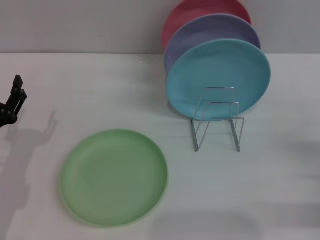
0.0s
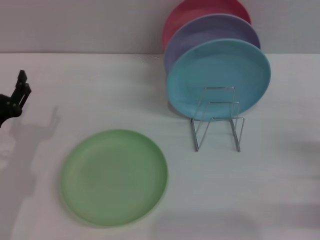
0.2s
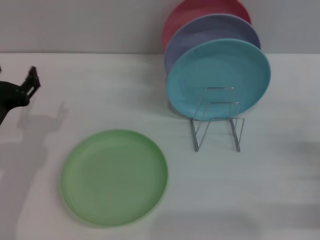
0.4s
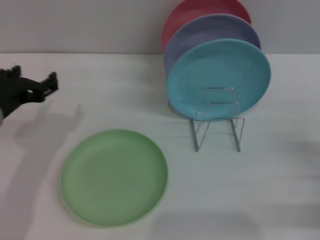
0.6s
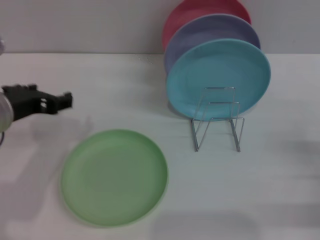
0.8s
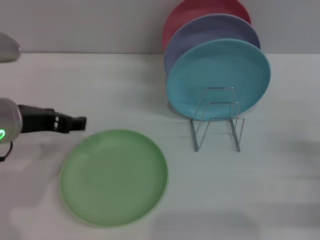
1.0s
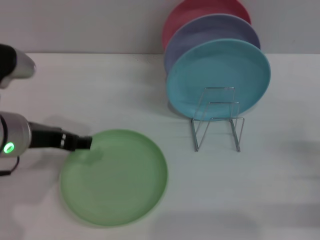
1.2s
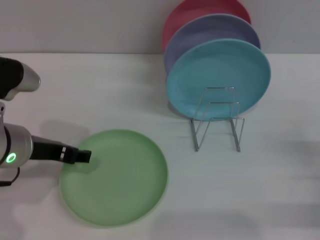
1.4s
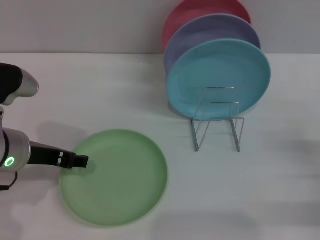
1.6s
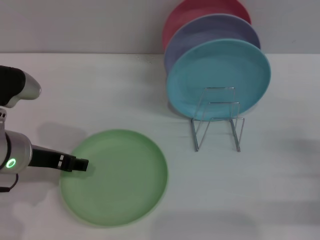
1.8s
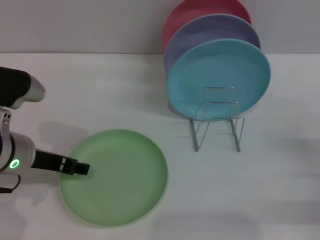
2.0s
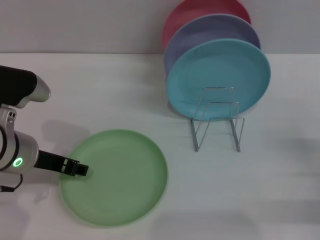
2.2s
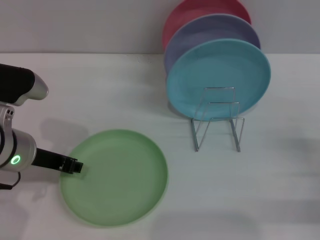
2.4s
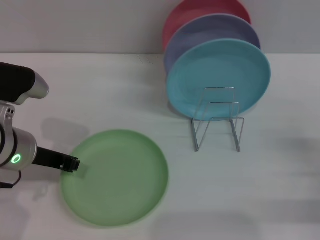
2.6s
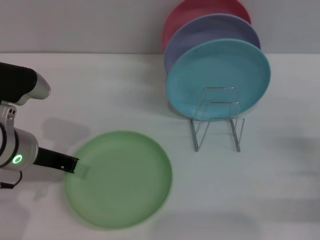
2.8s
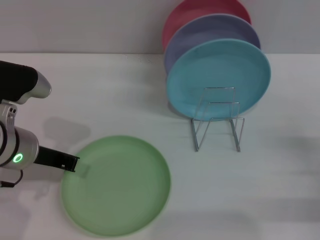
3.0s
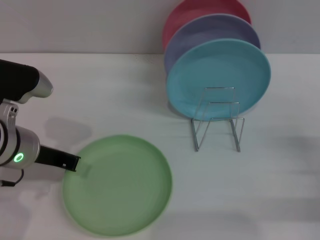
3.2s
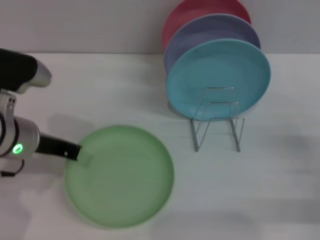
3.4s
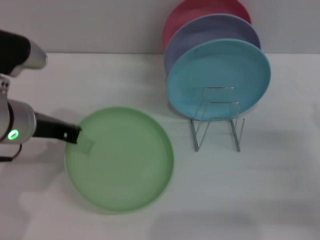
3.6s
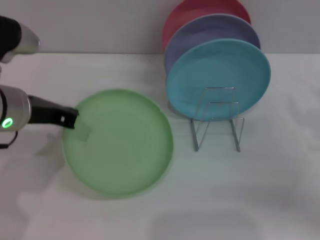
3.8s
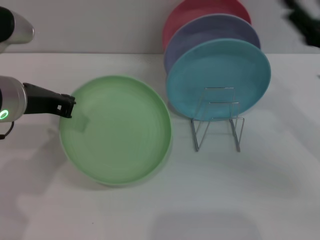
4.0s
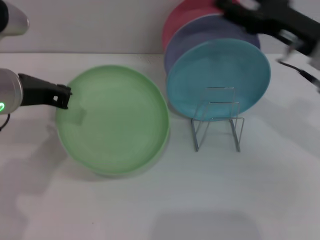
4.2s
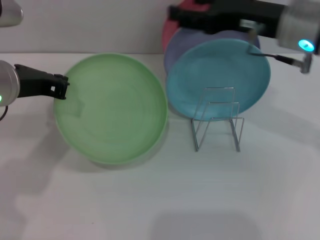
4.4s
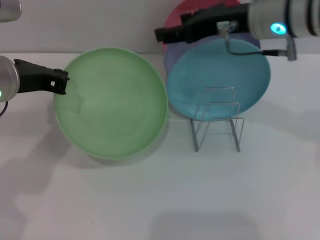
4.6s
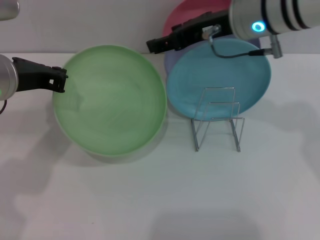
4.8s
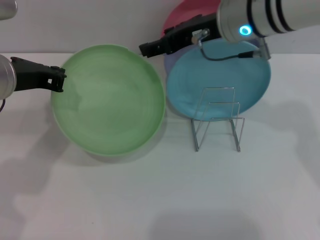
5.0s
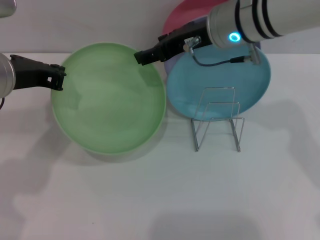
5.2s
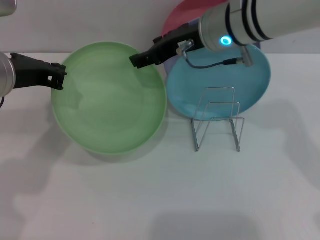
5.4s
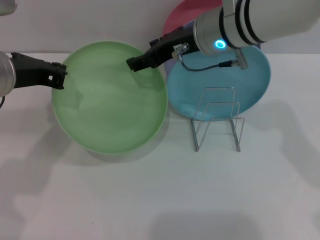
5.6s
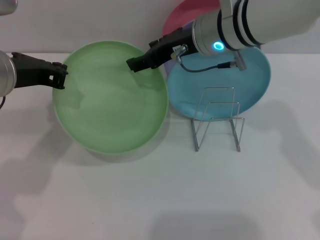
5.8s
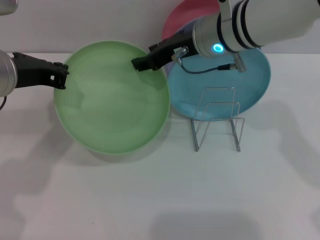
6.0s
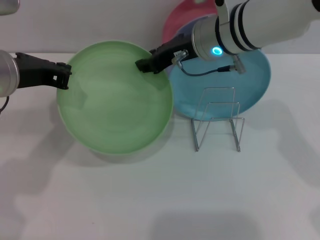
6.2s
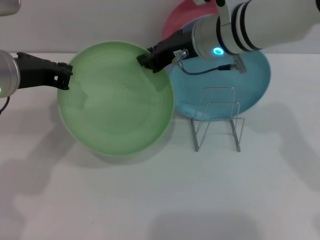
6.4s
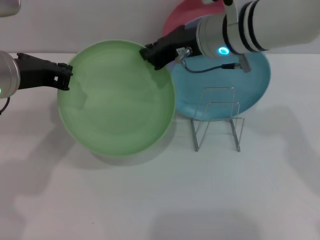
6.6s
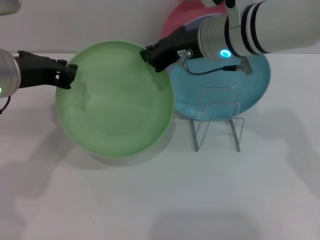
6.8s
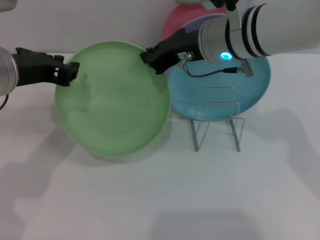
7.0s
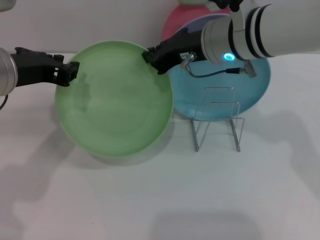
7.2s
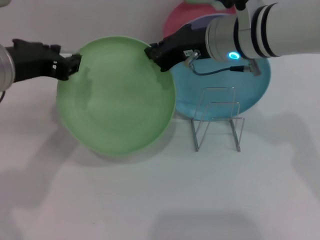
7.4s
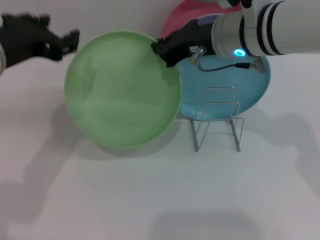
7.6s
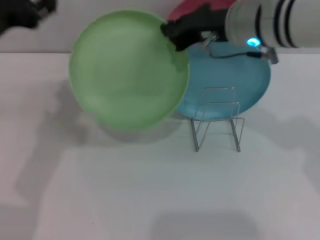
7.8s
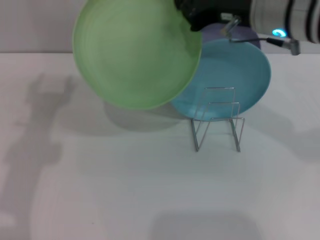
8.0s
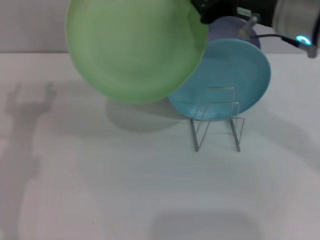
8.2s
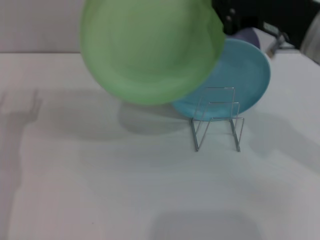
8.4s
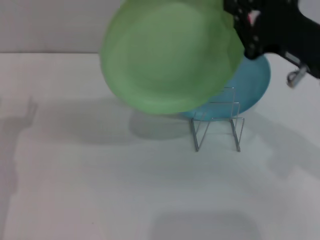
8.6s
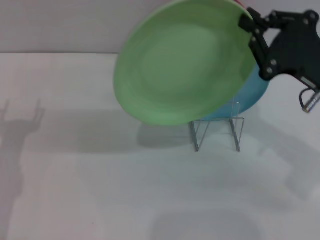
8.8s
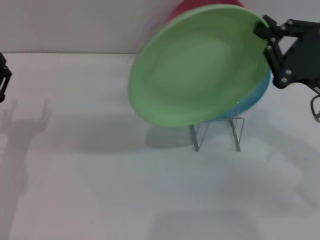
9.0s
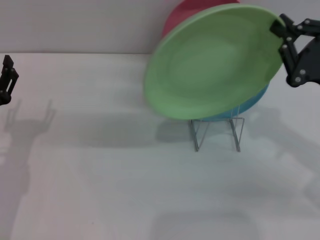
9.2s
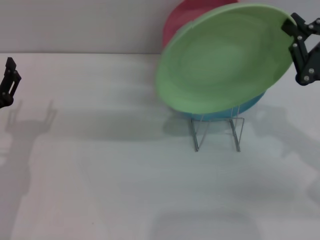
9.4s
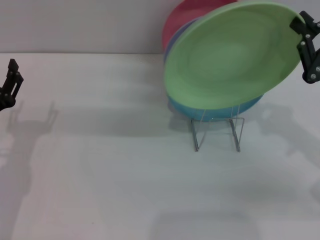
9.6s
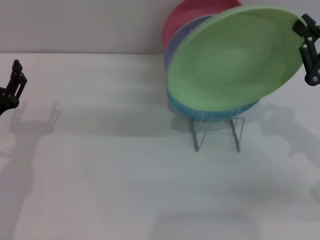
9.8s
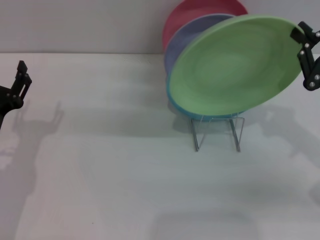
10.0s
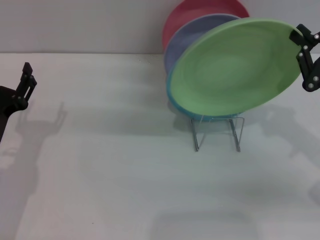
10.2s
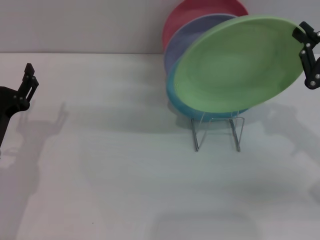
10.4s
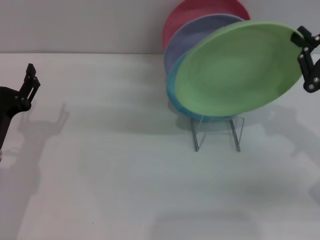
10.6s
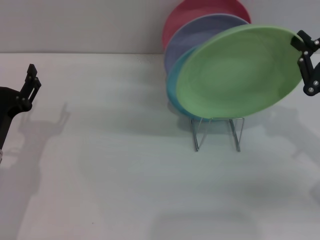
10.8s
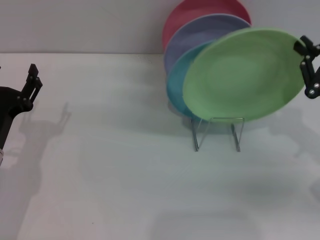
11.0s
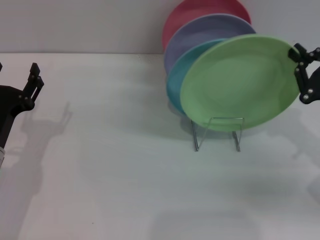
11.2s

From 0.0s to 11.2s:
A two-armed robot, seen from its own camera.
Task of the whole recording: Grip the plate with one hand, pass it to the other, then set it on the shelf.
Step, from 0.0s to 4.6s: Pick up the plate with the left gripper.
Step, from 4.8s to 8.2s: Pass the plate from the left gripper to the right gripper.
From 0.0s to 1.6s: The left gripper goes some 10 cm upward and to the right.
From 1.6s to 3.2s: The left gripper closes up.
From 3.2s to 4.8s: The right gripper is displaced to the left, upward and forward by some 35 cm. The left gripper is displaced upward by approximately 10 cm.
From 4.8s to 6.4s: The right gripper moves approximately 5 cm, and closes.
From 6.4s to 8.0s: The right gripper moves to the right, roughly 5 cm, and closes up. Meanwhile the left gripper changes place by some 5 cm, and opens up.
From 8.0s to 9.6s: The left gripper goes roughly 15 cm downward. Meanwhile the right gripper shifts roughly 20 cm to the right, downward and backward.
From 9.6s to 11.2s: There are only small adjustments of the grippers.

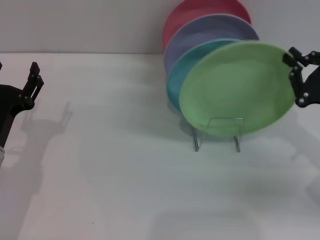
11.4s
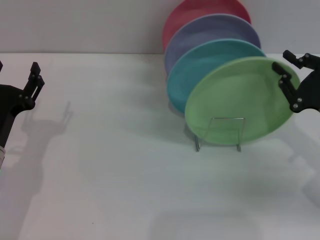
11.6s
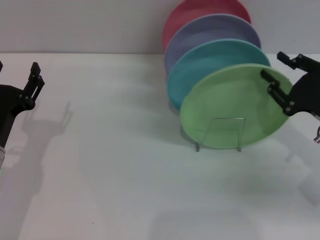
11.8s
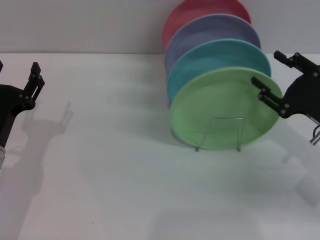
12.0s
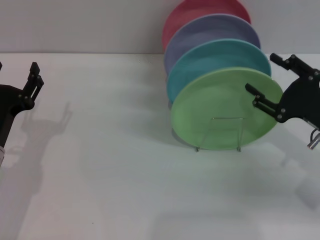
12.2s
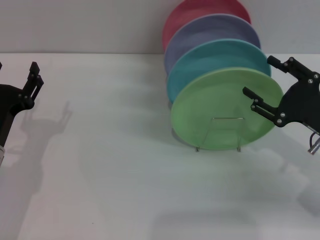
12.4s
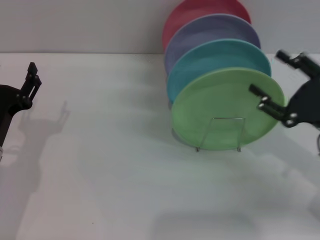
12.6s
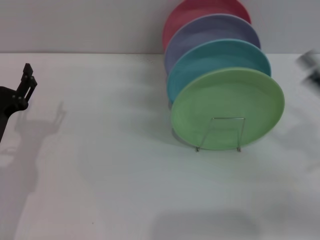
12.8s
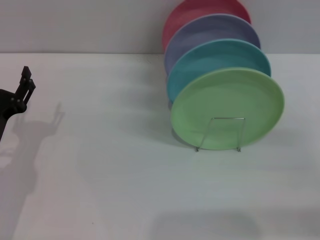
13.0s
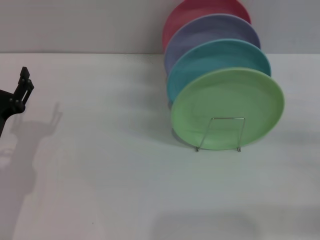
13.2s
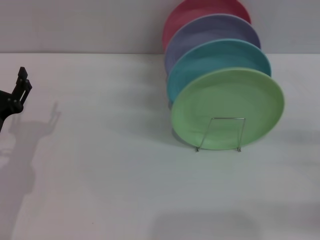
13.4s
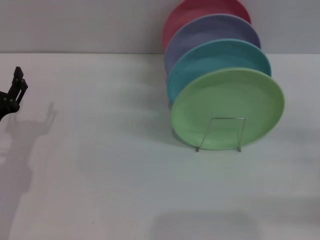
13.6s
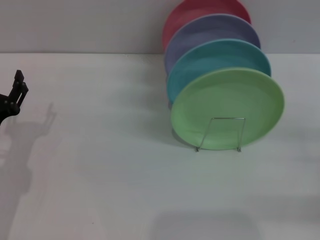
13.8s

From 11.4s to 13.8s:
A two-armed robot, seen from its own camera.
Task of the whole recording: Grip the plate with one hand, pass it to the other, then set it on the shelf.
From 11.4s to 12.6s: The right gripper opens.
From 12.6s to 13.8s: The right gripper is displaced to the right by some 10 cm.
